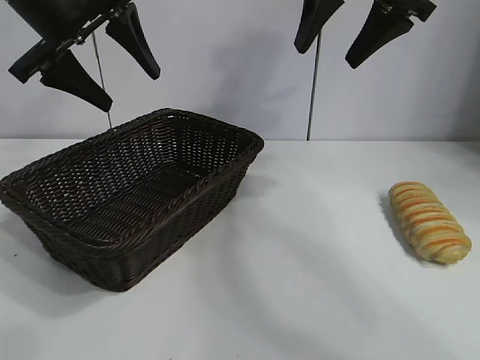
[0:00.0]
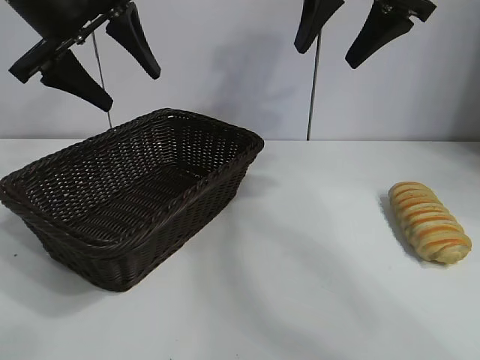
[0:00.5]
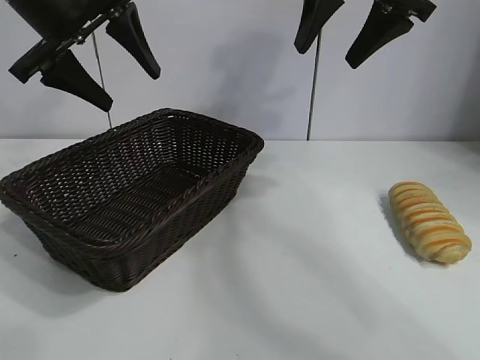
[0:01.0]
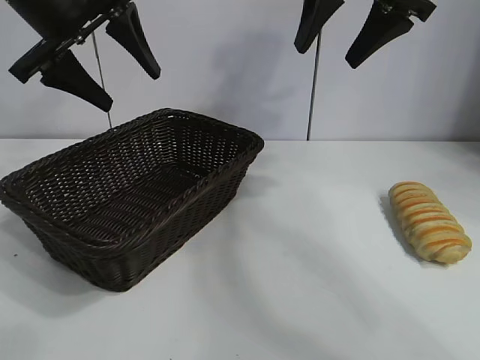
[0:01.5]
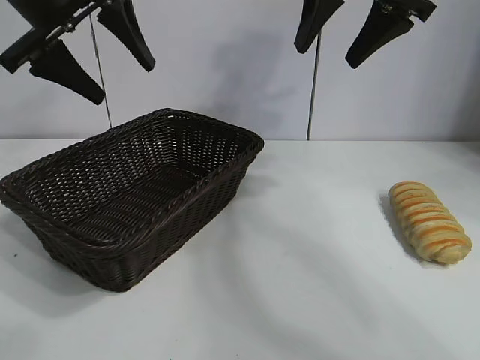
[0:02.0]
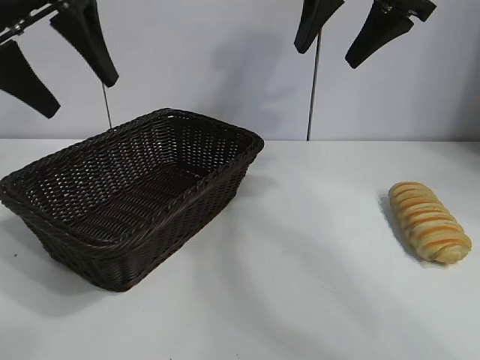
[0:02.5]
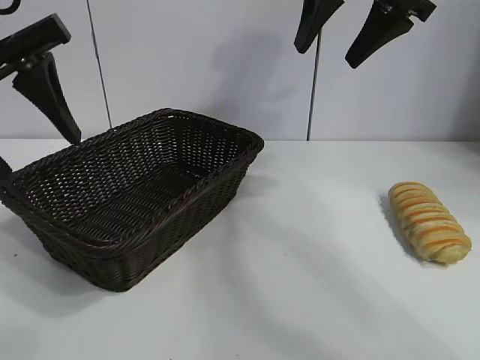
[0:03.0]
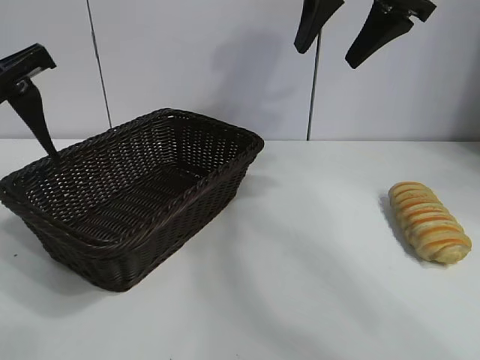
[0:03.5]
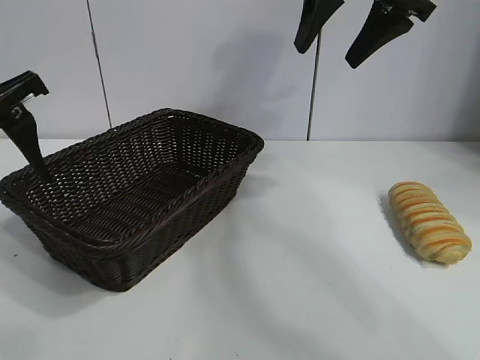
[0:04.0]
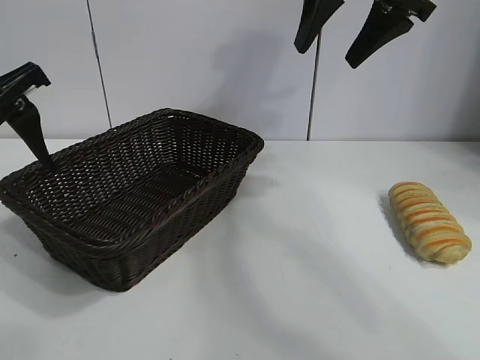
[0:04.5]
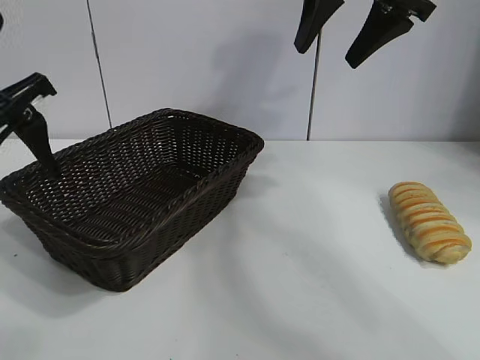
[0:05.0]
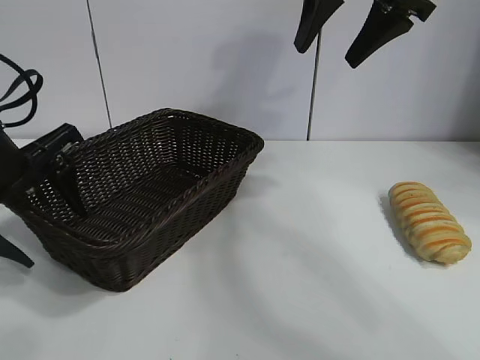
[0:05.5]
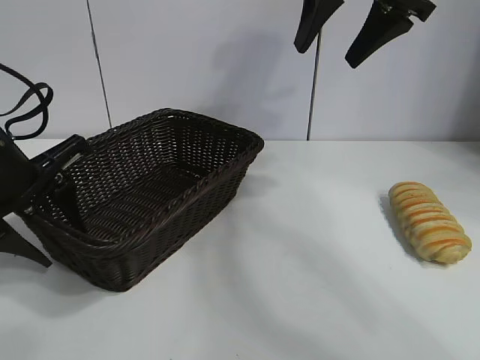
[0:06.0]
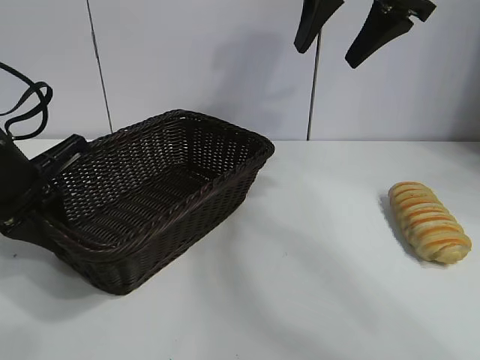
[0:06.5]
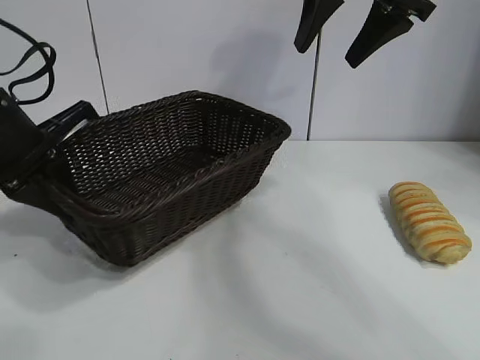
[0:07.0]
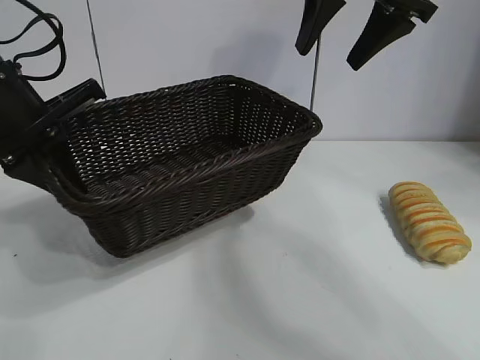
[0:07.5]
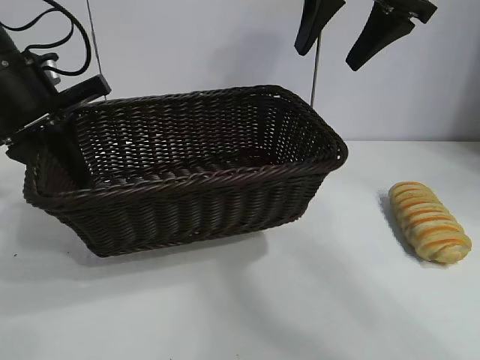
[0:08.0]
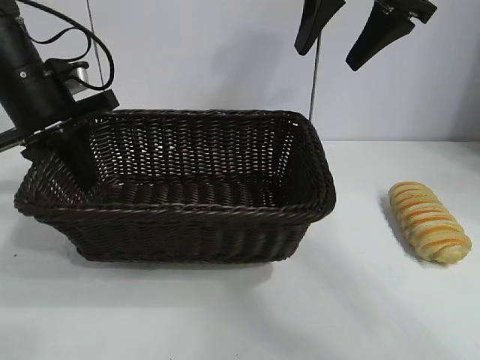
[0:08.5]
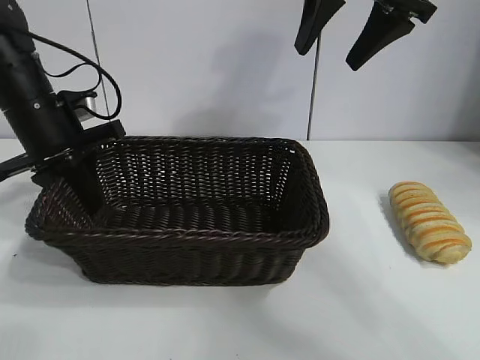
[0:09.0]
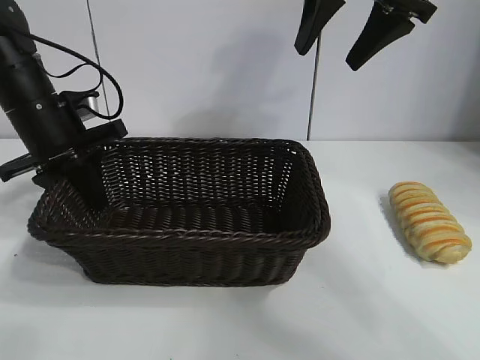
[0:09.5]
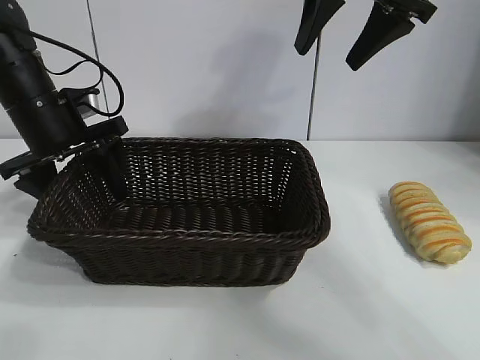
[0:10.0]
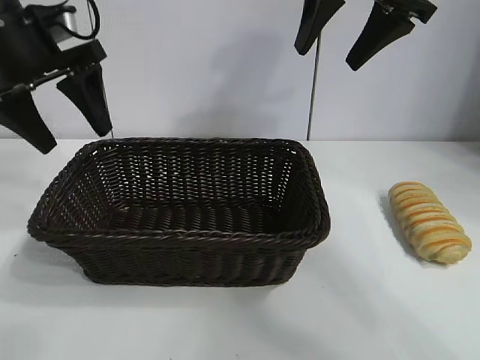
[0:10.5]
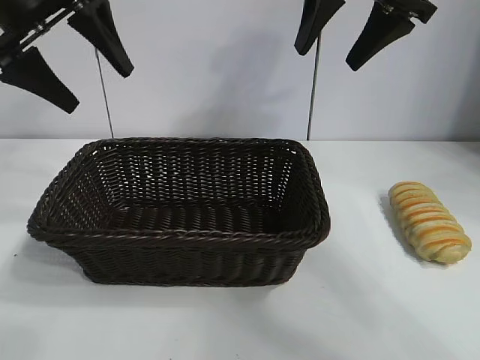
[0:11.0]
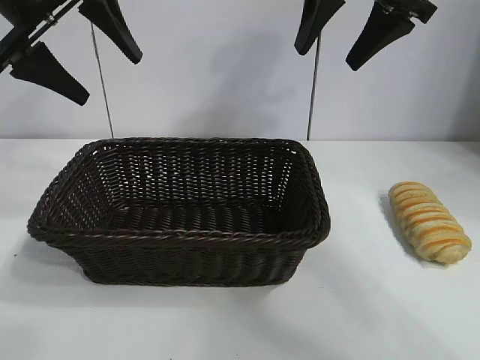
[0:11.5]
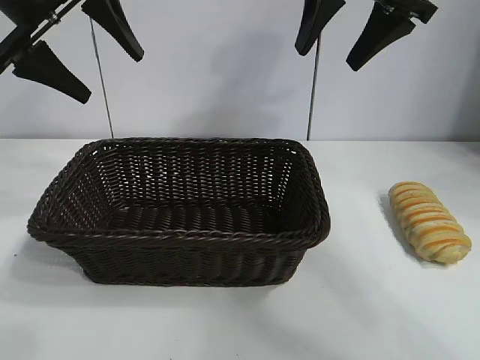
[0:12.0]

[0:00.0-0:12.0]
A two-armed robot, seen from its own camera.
Task of the whole recording: pick up the long bread and put it into the basket.
Step, 0:02.0 to 0:06.0: Grasp the basket with the left gripper.
Step, 0:07.0 to 0:09.5: Place the basket in the center of the table with the left gripper.

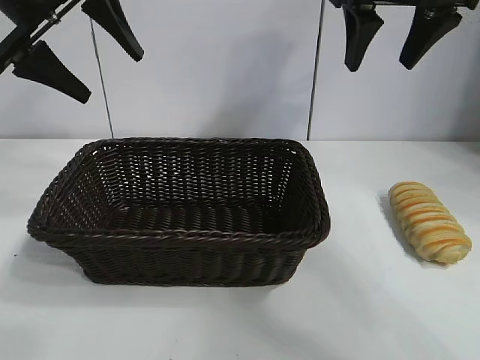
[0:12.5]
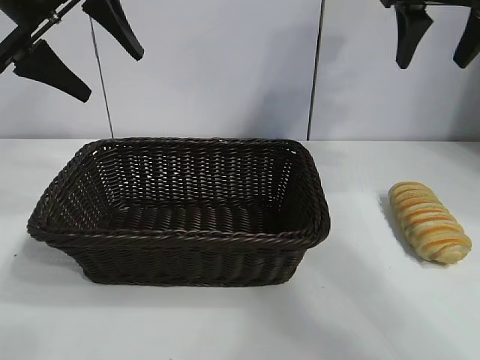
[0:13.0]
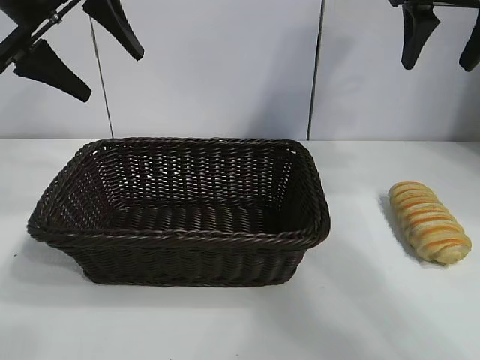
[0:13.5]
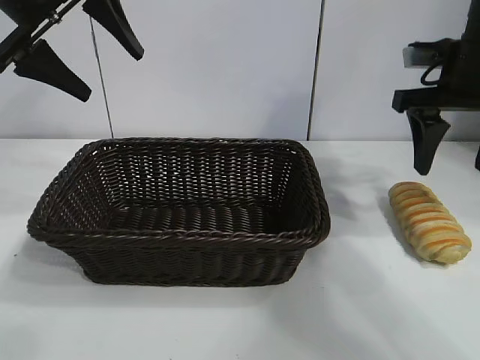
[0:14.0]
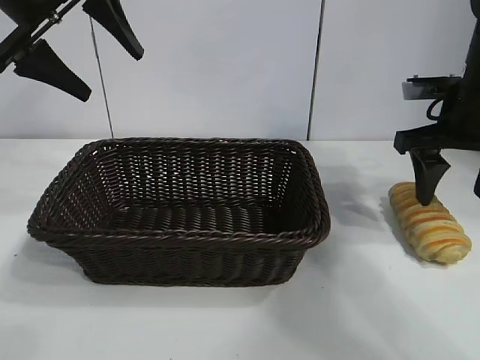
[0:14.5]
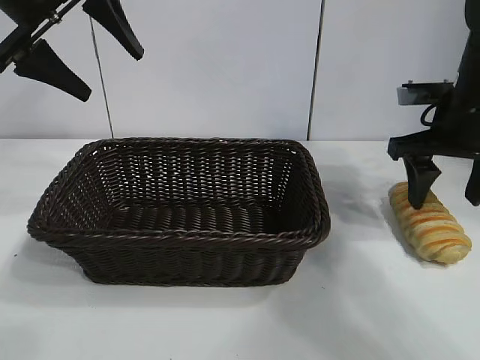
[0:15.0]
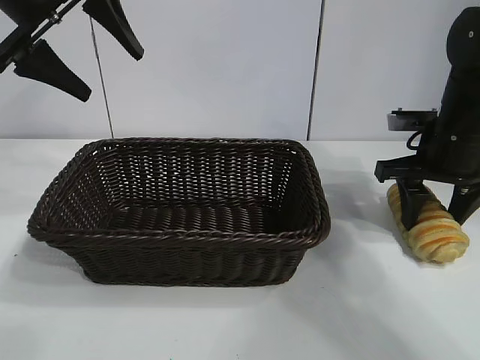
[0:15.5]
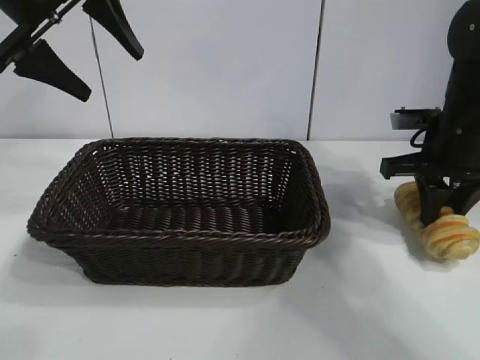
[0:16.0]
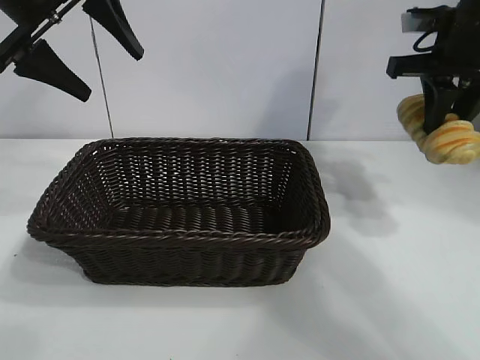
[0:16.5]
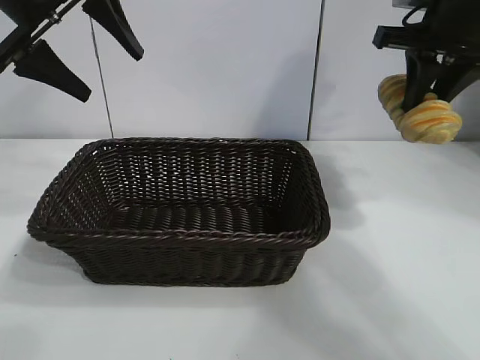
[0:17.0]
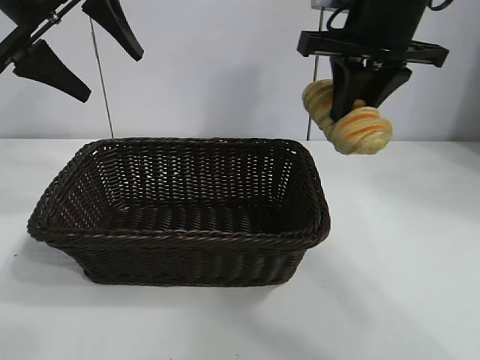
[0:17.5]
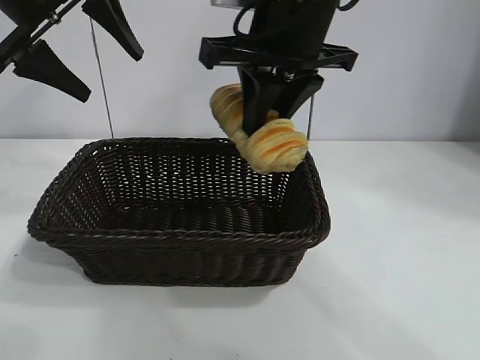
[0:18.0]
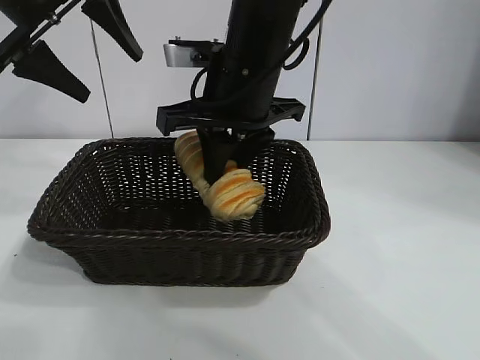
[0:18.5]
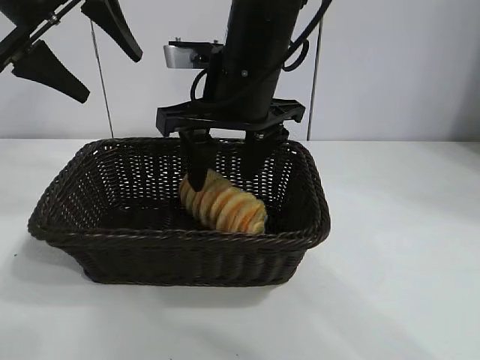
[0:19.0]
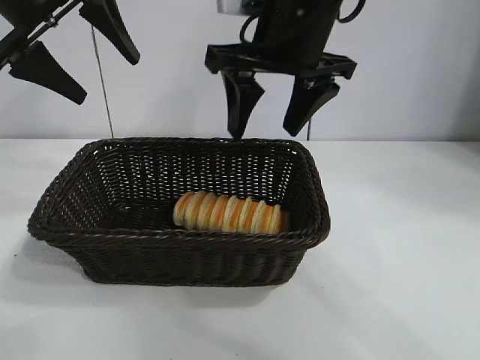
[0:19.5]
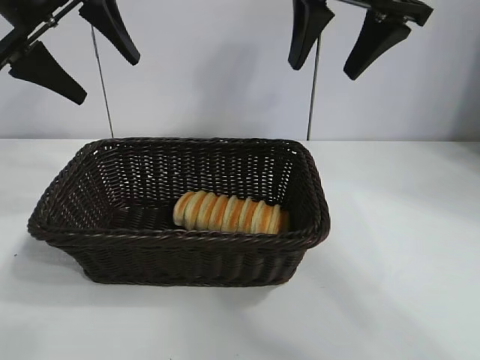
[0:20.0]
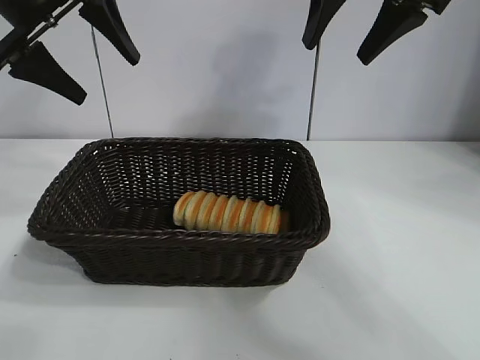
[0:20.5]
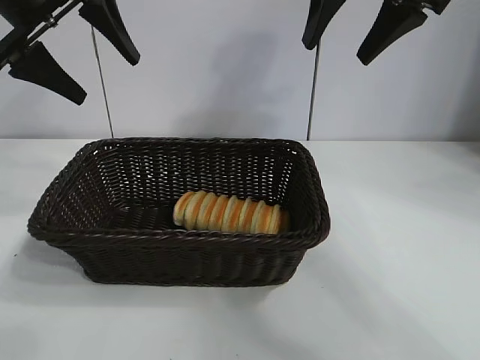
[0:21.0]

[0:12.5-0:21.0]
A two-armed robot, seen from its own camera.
Task of the whole recording: pick up the long bread and put it into the basket.
Step, 0:12.5 to 0:15.5: Grasp the long bread with right gripper.
Step, 0:16.0 to 0:19.0: Place the long bread in the basket with right gripper.
